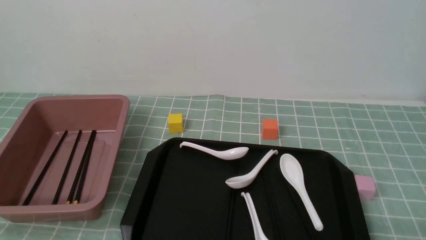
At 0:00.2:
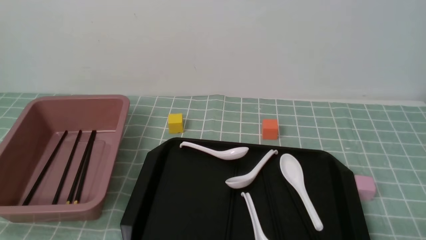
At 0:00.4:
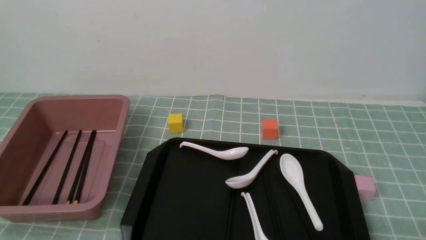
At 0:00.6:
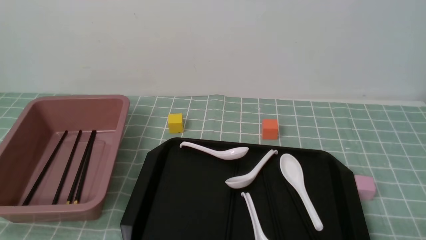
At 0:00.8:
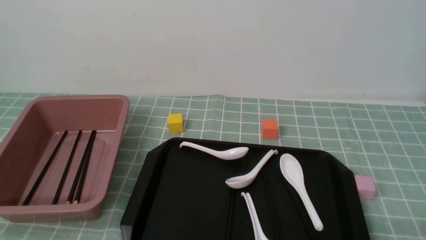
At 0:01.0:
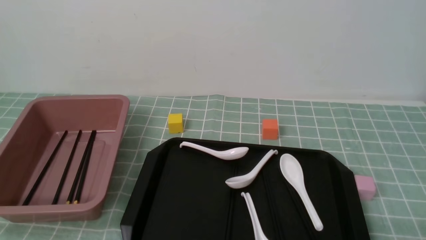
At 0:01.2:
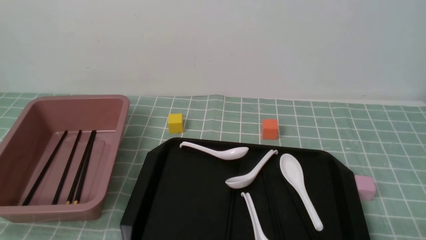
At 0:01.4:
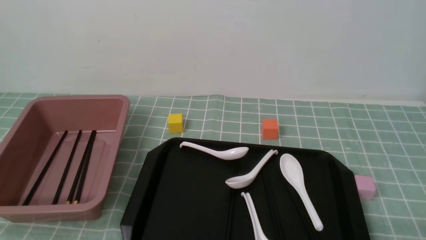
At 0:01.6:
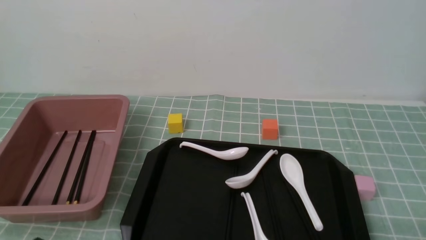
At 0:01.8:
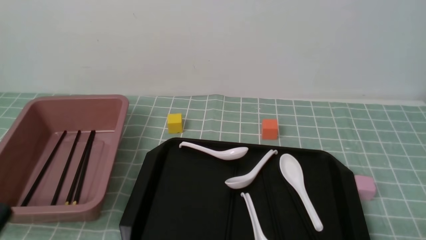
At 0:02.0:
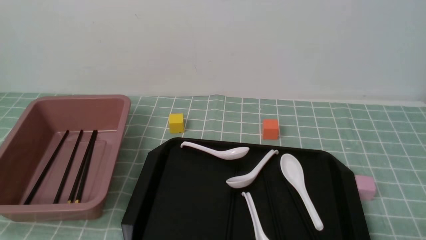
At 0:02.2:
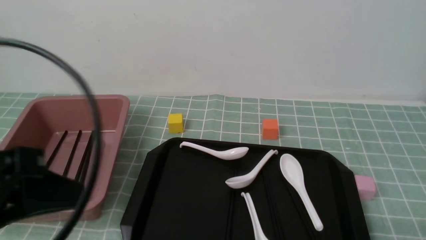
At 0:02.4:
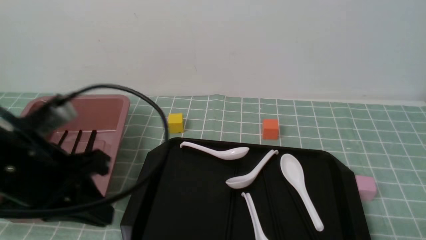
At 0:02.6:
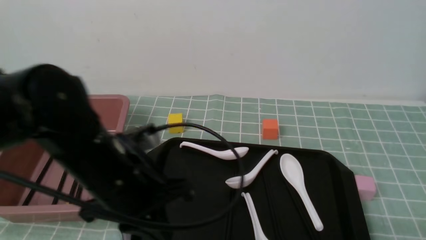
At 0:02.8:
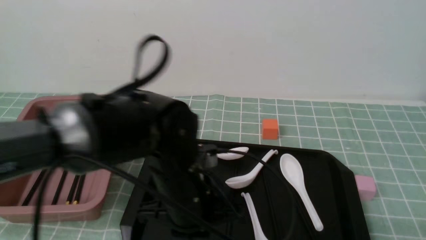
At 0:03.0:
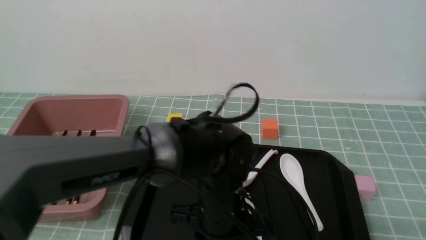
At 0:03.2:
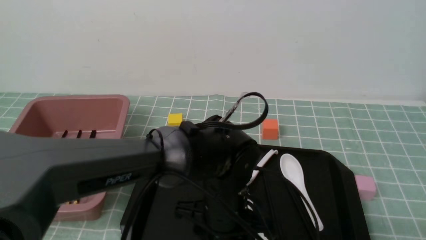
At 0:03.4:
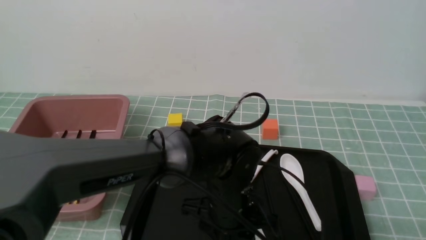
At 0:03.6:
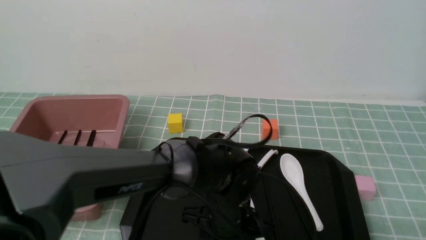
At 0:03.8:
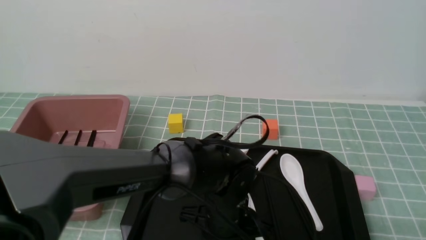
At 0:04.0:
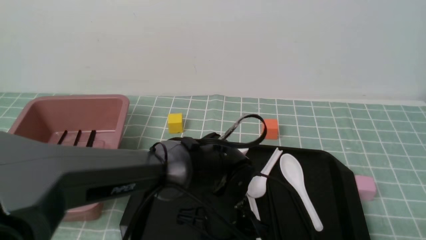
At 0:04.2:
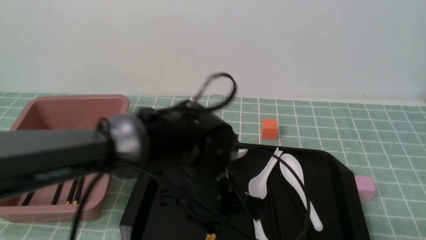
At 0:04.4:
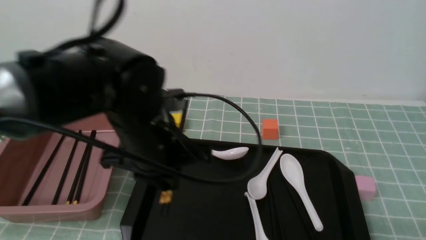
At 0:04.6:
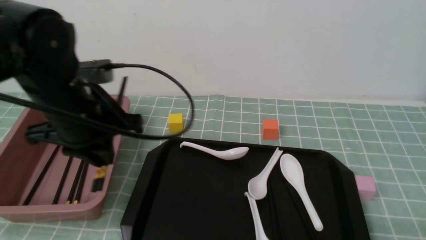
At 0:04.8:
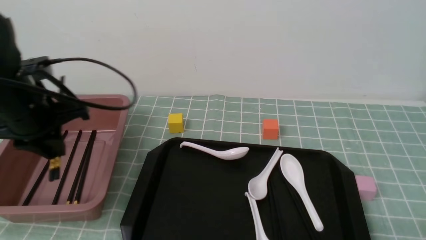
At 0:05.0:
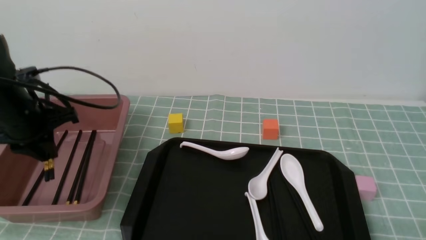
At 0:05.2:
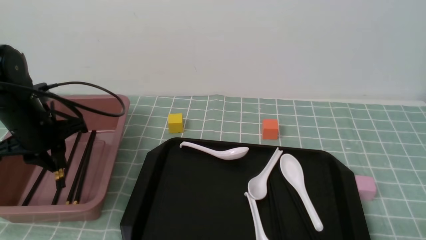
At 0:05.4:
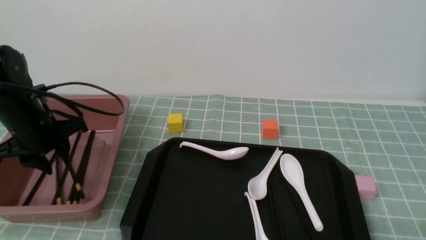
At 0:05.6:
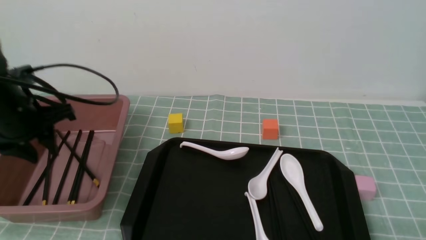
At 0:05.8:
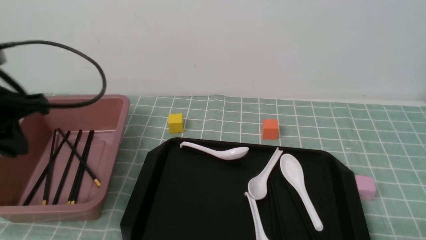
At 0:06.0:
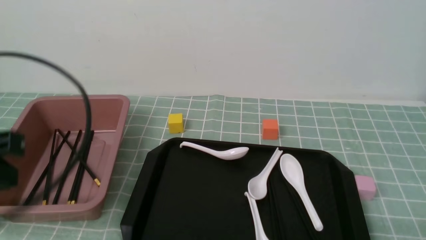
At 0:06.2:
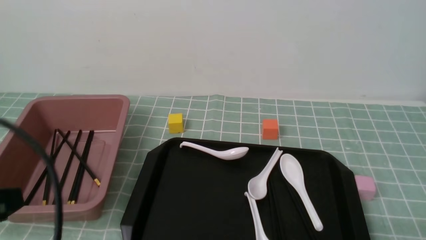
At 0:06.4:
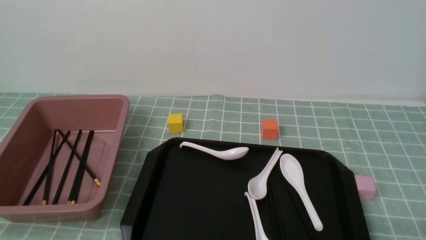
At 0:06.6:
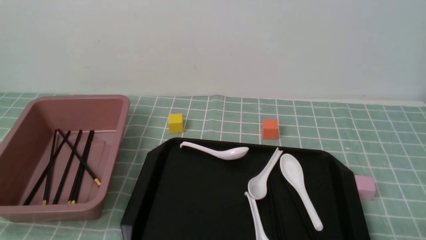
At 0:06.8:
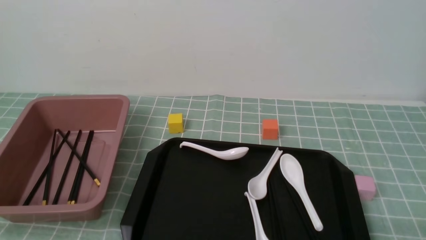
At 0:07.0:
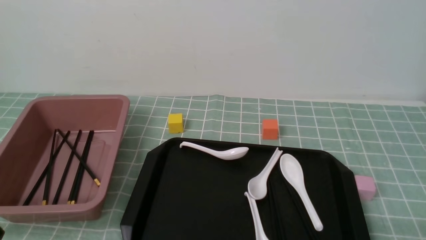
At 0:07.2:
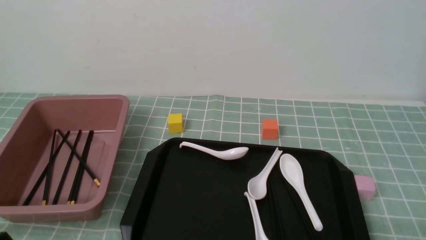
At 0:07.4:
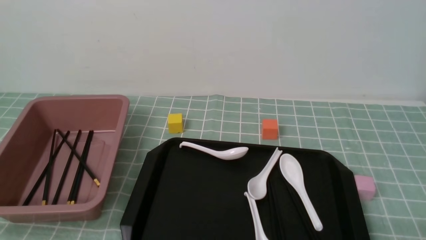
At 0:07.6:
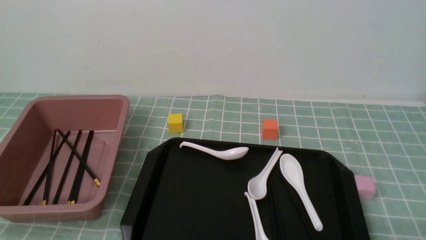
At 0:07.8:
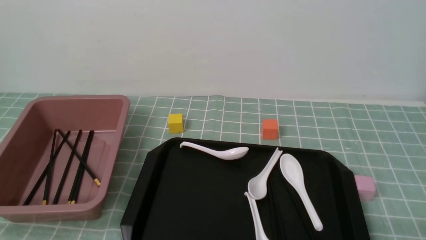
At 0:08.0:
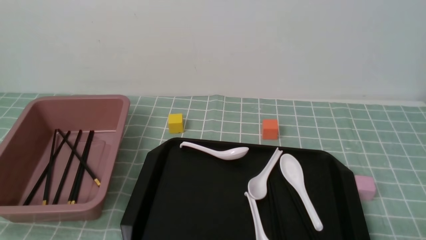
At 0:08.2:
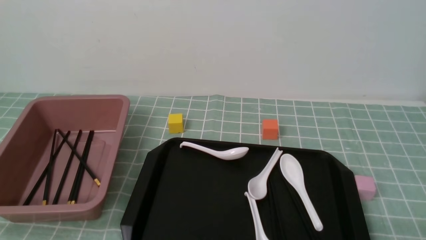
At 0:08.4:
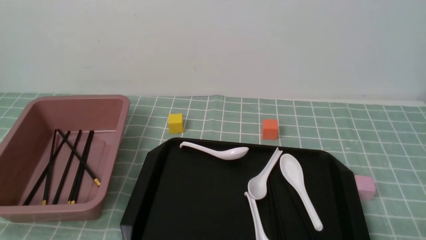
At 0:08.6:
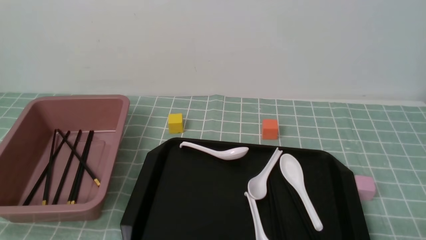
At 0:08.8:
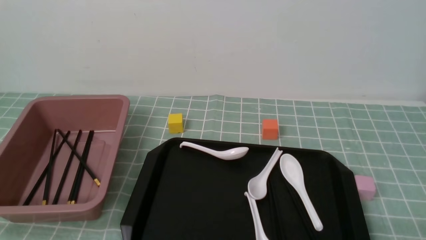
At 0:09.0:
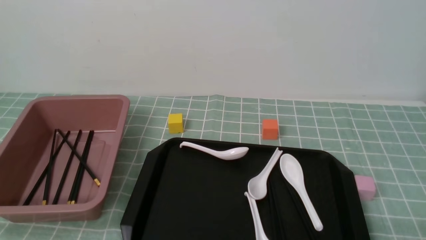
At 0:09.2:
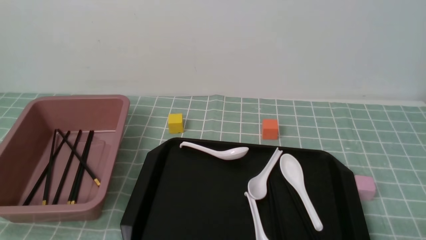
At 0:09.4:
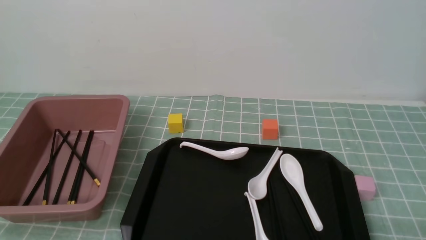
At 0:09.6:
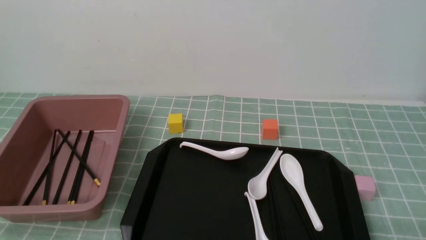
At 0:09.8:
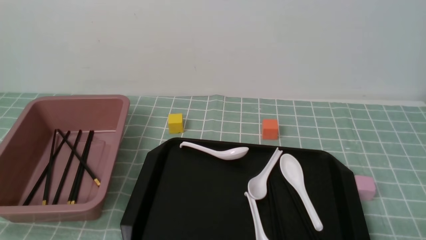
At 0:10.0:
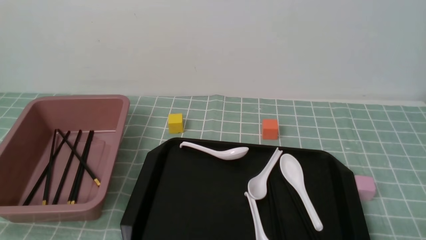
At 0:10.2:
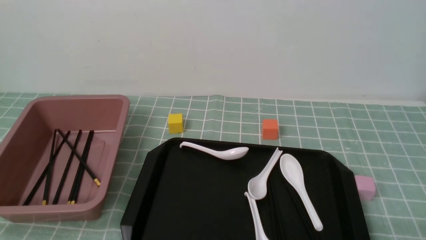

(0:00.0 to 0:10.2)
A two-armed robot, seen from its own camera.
Step, 0:00.0 - 0:04.2: use the left arm to grab a pair of chopsticks.
Step, 0:04.4 - 0:05.8: use the left arm to put the chopsticks into the lunch box.
0:01.4 - 0:03.0: The left gripper travels to the right and forward by approximately 30 cm.
0:03.0 - 0:04.4: The left gripper goes approximately 15 cm to the left and upward, and opens and closes again.
0:04.4 - 0:05.8: The left gripper goes some 15 cm to the left, and opens, then closes once more.
0:05.8 - 0:07.2: The left gripper travels backward and downward by roughly 25 cm.
0:08.8 - 0:10.2: Both grippers stay put.
